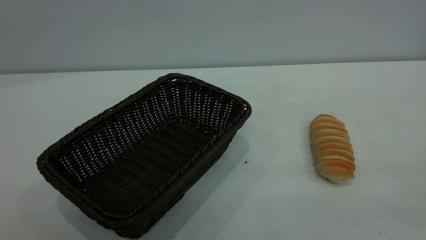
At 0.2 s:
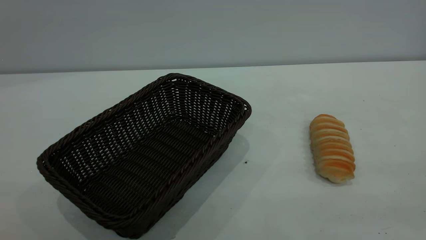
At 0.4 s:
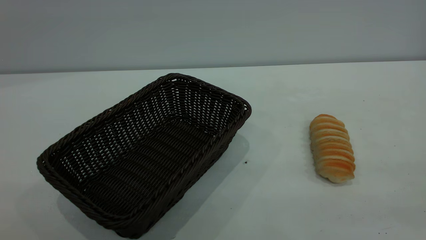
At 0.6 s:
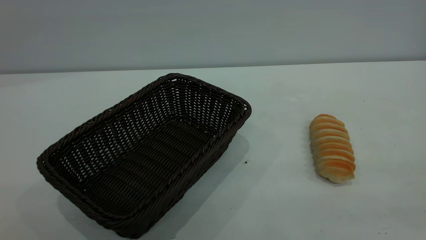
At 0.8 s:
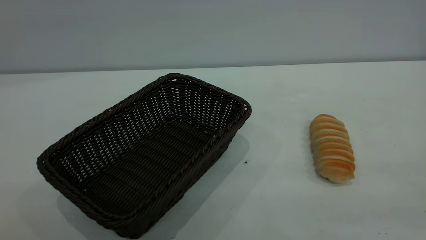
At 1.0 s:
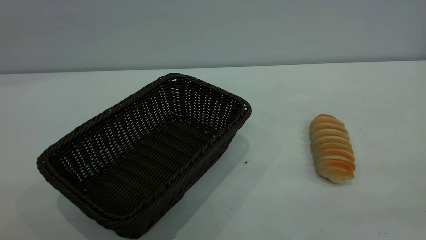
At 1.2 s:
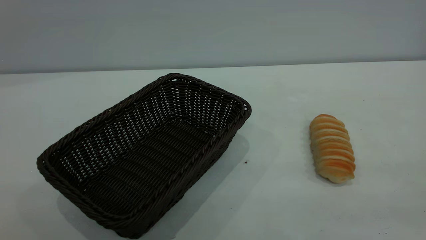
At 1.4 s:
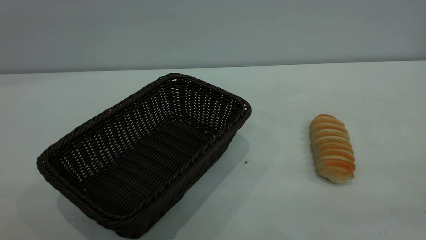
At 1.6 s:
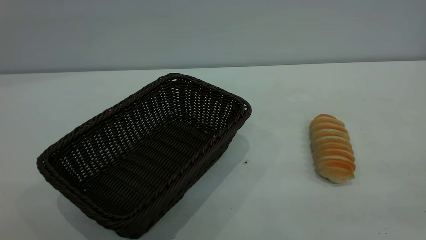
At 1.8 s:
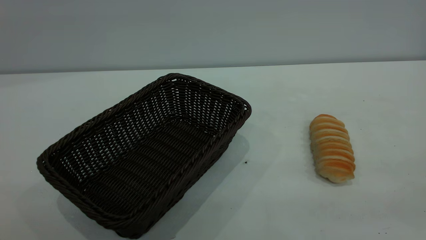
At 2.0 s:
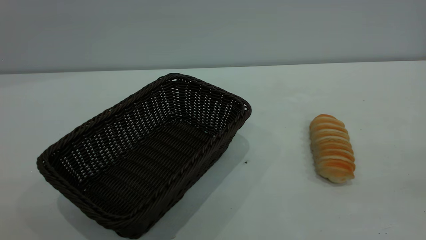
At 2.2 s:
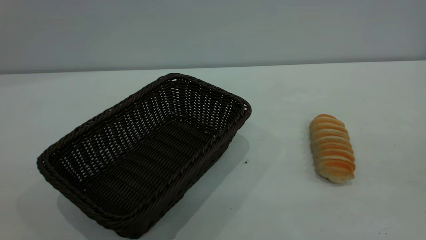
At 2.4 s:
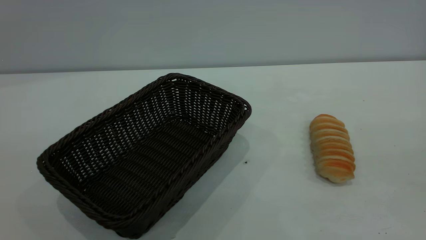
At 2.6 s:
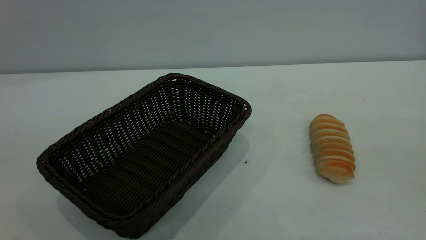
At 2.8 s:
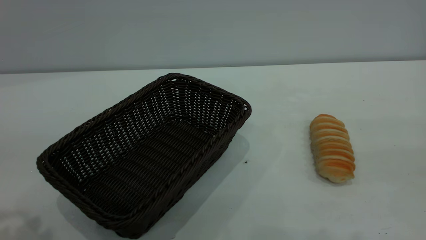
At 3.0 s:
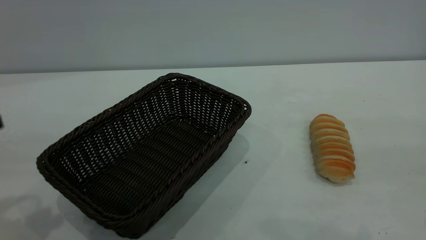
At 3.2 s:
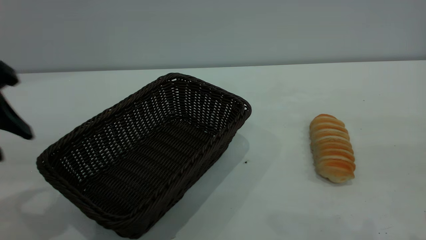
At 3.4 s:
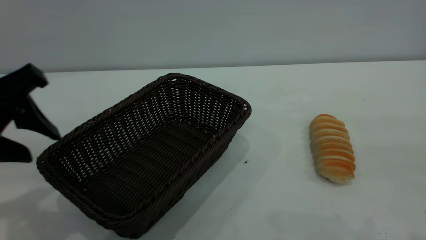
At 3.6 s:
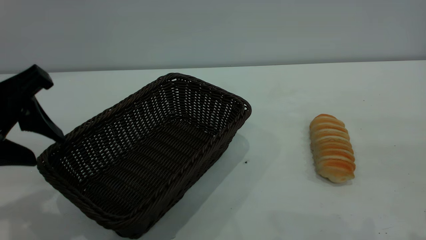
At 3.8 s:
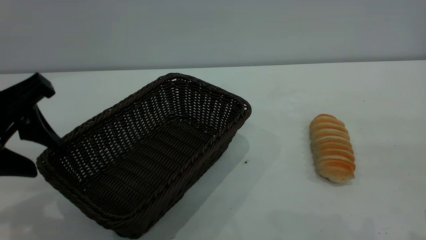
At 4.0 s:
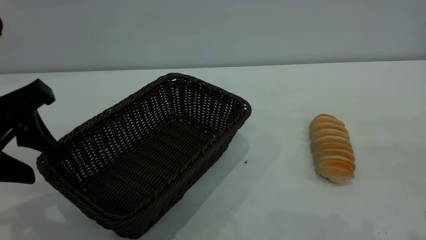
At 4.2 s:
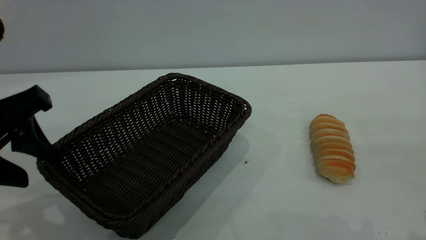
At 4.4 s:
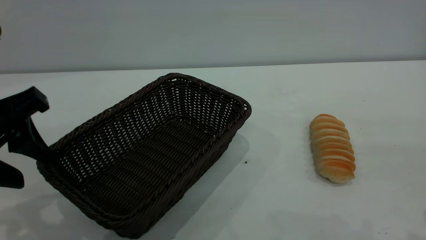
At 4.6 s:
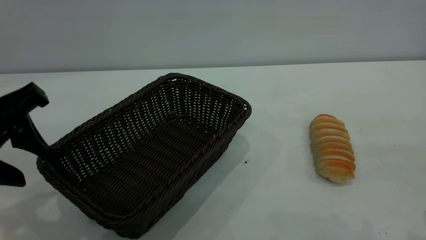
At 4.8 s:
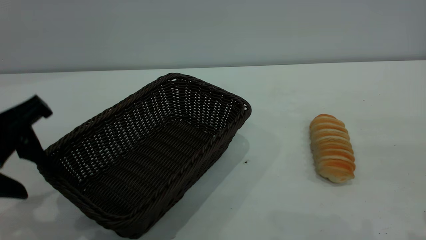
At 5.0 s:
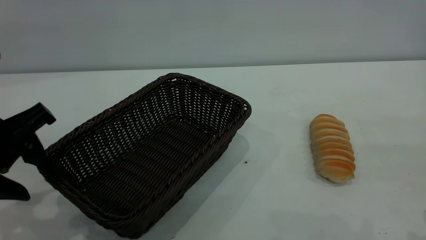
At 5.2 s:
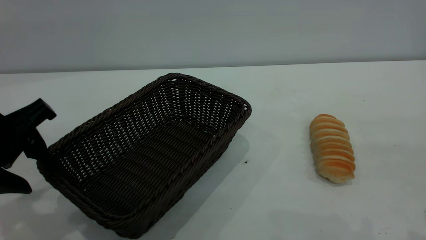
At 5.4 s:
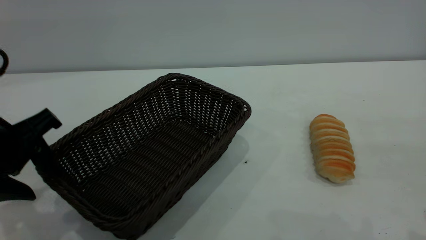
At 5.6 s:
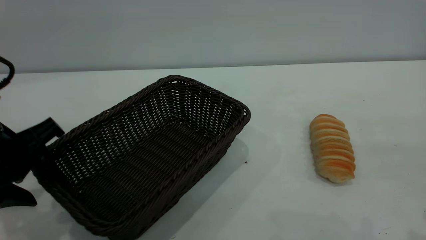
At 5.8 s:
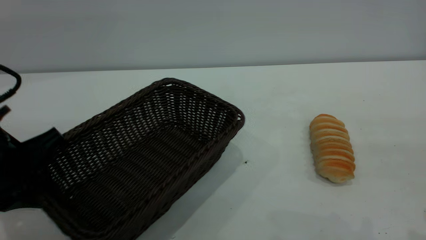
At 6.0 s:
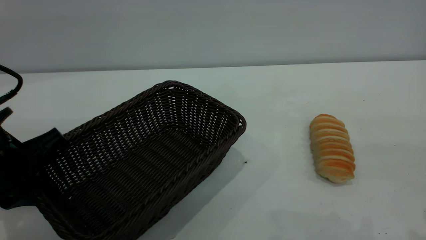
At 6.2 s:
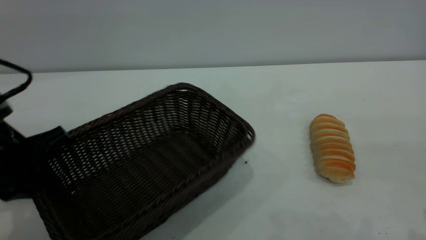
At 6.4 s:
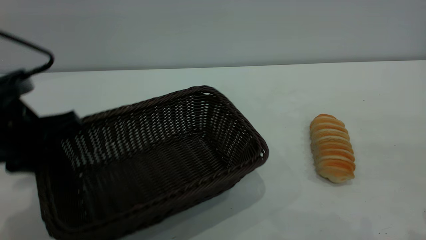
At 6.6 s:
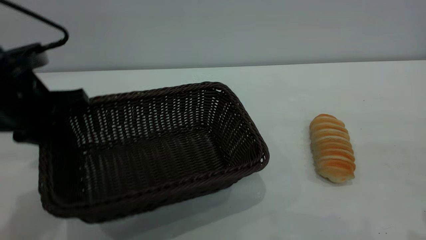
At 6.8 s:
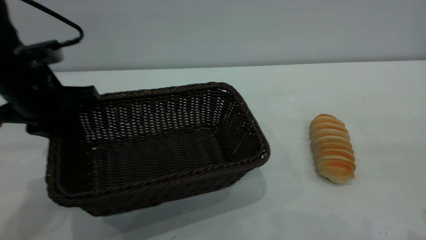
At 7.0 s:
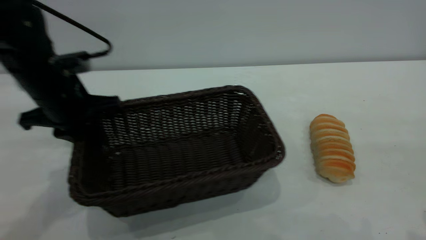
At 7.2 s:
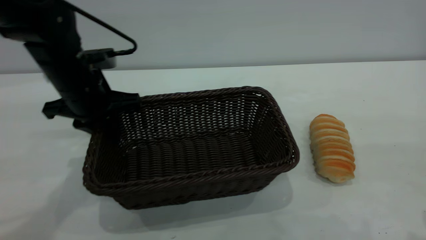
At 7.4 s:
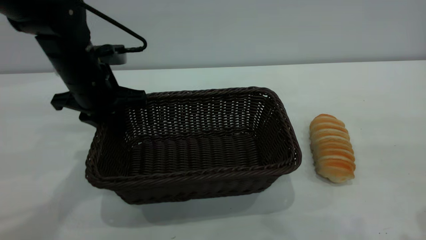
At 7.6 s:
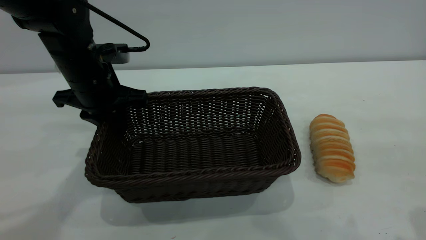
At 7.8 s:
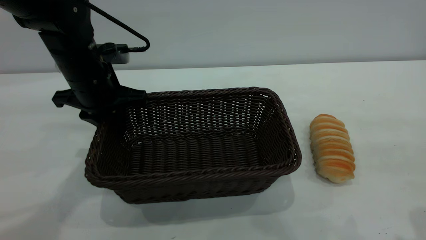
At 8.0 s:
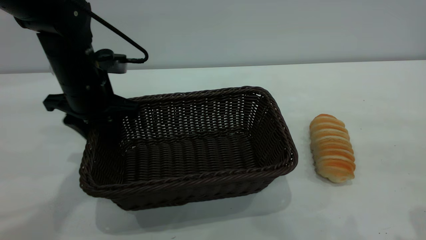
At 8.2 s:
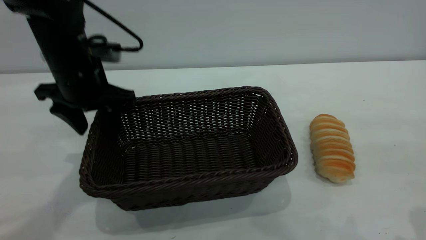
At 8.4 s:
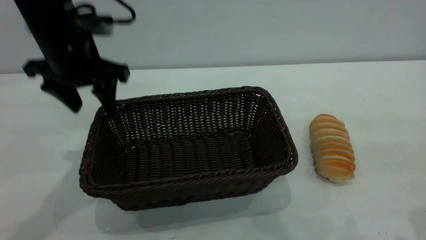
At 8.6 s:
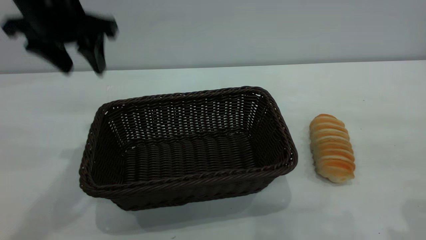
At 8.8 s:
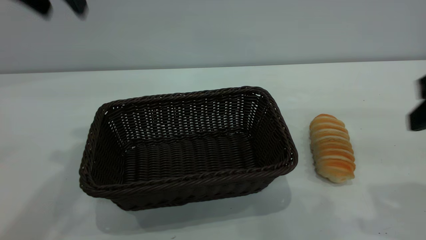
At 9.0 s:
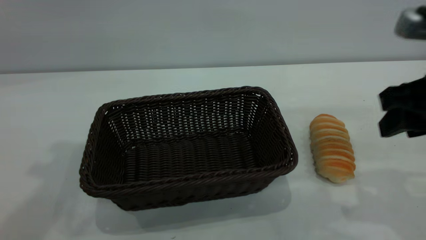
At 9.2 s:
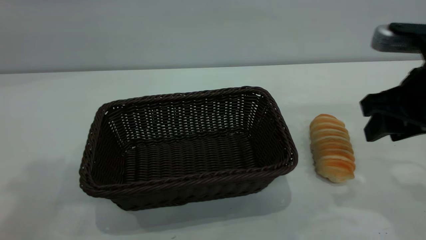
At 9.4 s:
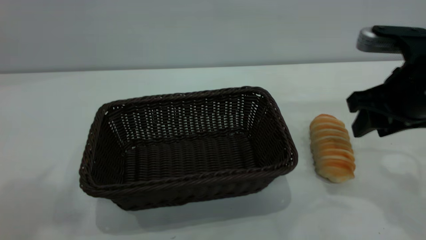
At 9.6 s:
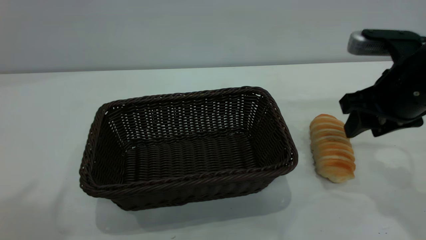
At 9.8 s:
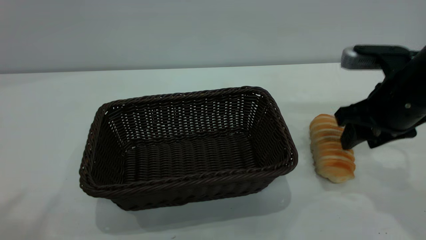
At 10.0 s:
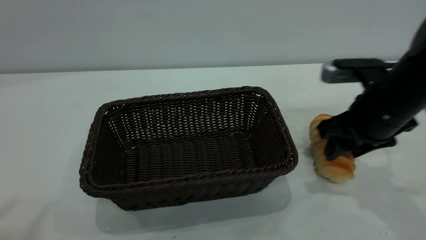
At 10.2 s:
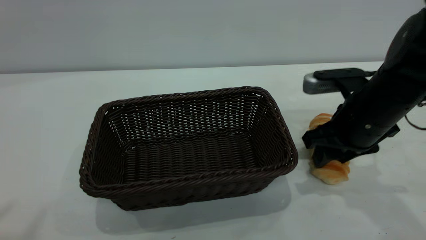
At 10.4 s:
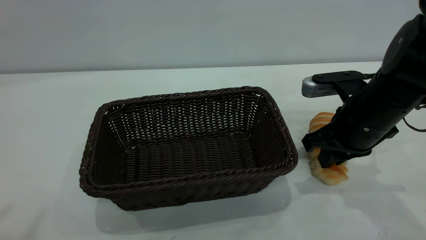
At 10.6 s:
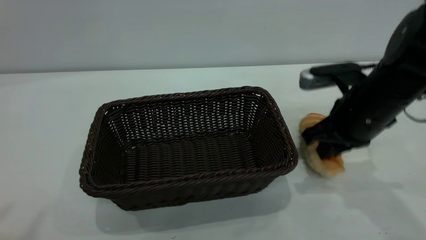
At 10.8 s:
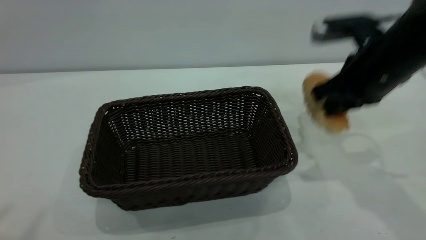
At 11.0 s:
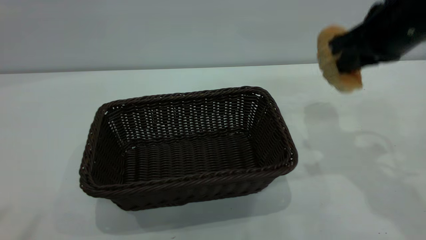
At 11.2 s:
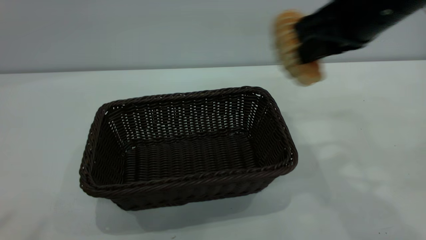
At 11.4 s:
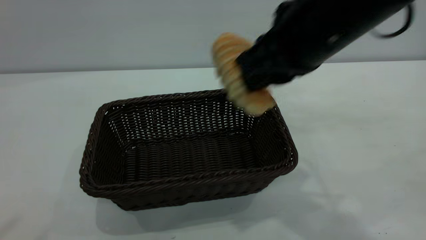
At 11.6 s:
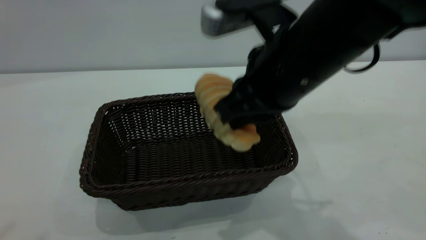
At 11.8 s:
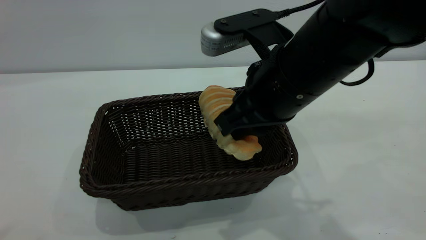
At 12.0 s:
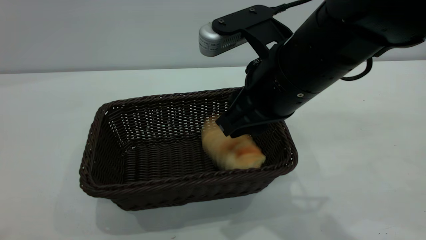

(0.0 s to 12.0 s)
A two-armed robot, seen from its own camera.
Task of the whole recording: One hand grasps the black basket and places it in the middle of the table, while the other hand picks up the long bread and puts it into the black basket.
Step, 0.0 s - 8.4 s: Move the basket to the center of view.
0.0 s - 1.6 s: Both grippers stay about where they are.
3.0 s - 4.4 s: The grippers make only small movements.
4.4 s - 6.0 s: The left gripper goes approximately 10 cm downward, and closes its fingers.
6.0 s - 7.6 s: The left gripper shifts some 15 cm forward and to the right.
7.6 s - 9.0 s: The left gripper moves upward, roughly 30 cm, and opens its fingers. The right gripper heads forward, covering approximately 10 cm.
9.0 s - 10.4 s: The left gripper goes about 20 cm backward and upward; the right gripper heads downward, forward and to the left, covering about 15 cm, and closes its fingers.
10.4 s - 12.0 s: The right gripper goes about 15 cm to the left, upward and backward, and opens up.

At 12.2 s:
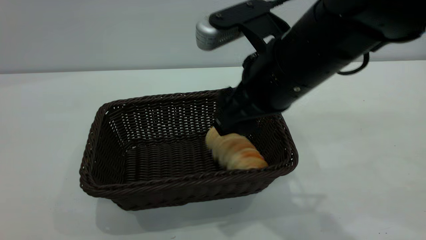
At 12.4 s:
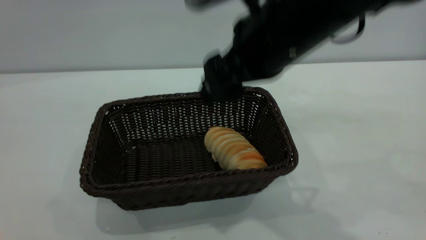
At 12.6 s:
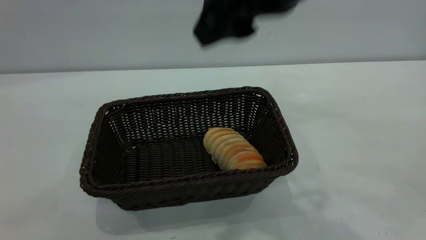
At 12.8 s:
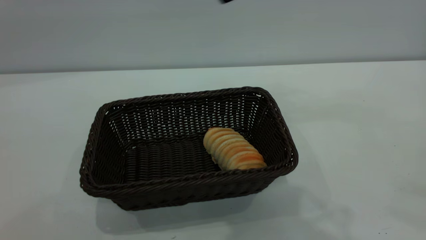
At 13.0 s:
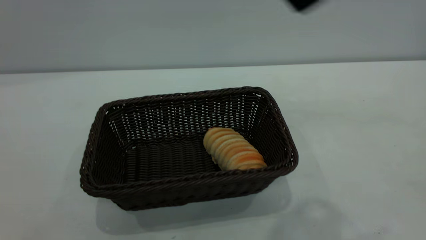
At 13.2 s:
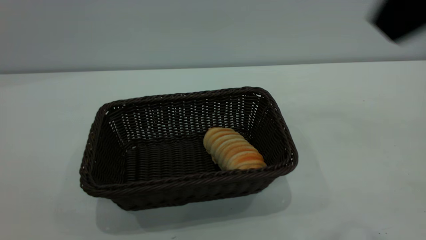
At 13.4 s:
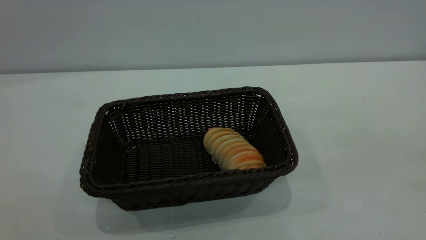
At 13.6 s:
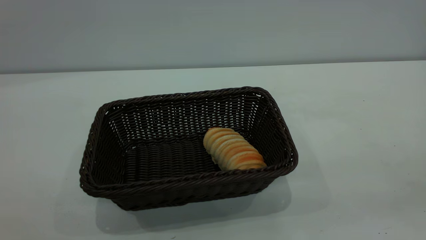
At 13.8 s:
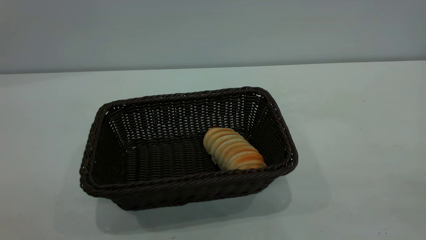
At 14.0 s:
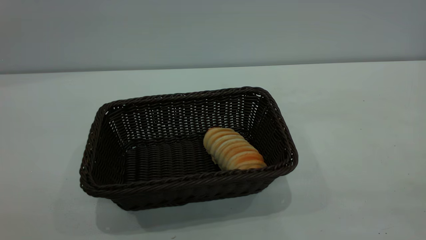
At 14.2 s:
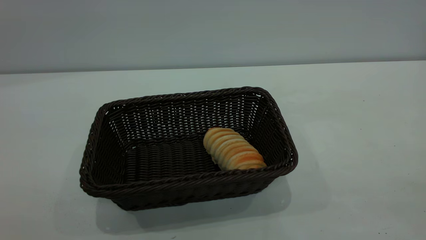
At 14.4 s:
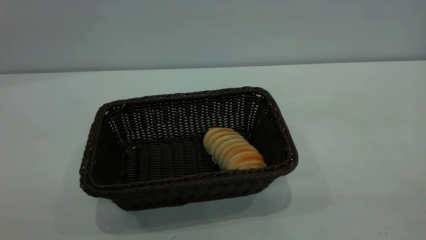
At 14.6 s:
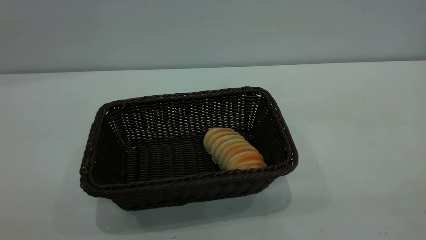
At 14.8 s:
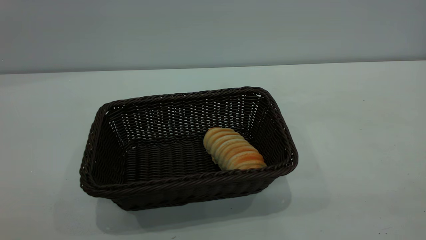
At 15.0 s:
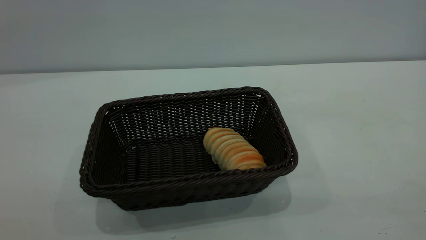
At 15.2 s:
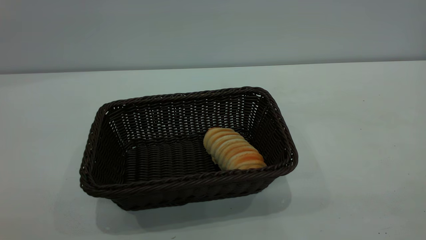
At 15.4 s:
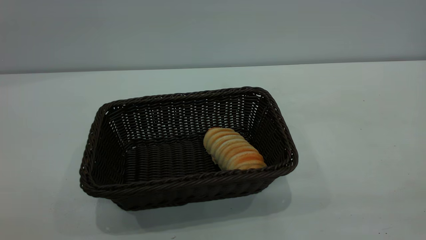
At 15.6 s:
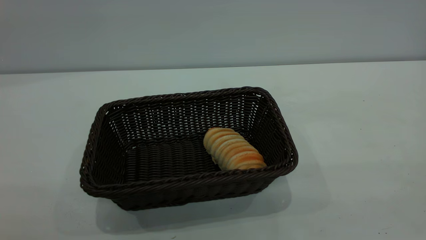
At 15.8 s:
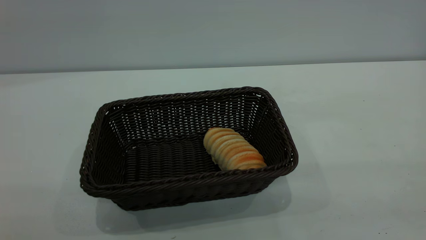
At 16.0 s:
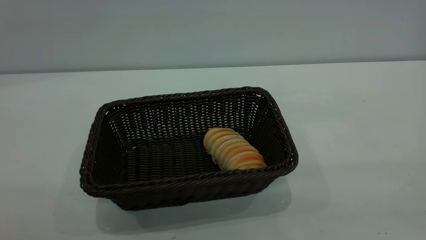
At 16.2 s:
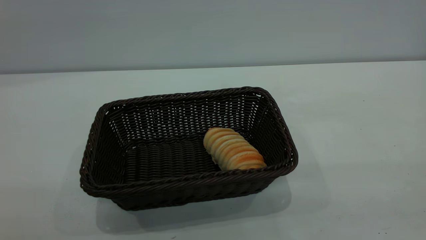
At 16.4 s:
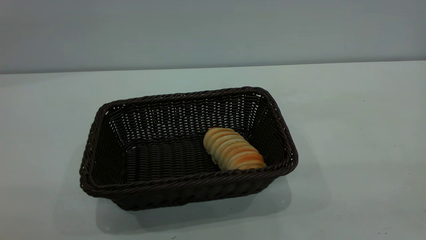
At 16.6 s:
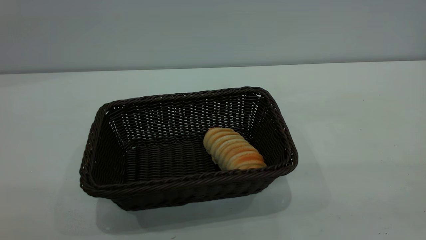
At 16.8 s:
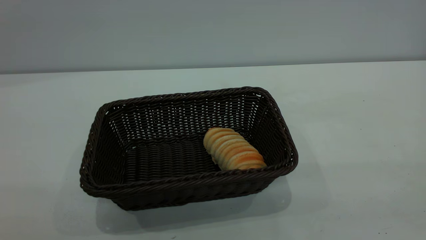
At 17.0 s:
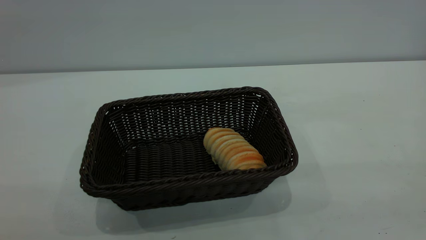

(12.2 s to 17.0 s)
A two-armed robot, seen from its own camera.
Task of the whole recording: One hand grasps the black basket and places it in the middle of the table, while the other hand picks up the long bread and puts it into the black basket.
12.2 s - 13.8 s: The left gripper goes roughly 25 cm downward and backward; the right gripper travels backward, to the right and upward by about 40 cm.
